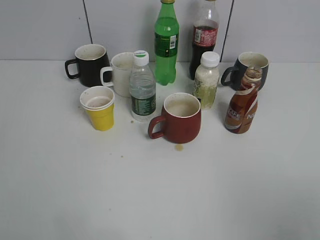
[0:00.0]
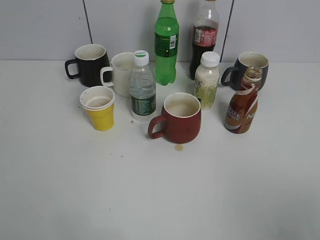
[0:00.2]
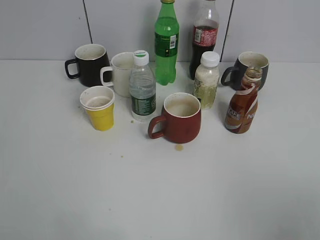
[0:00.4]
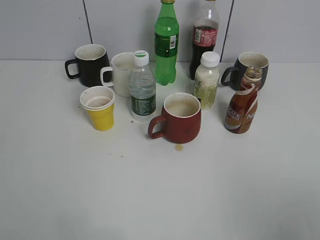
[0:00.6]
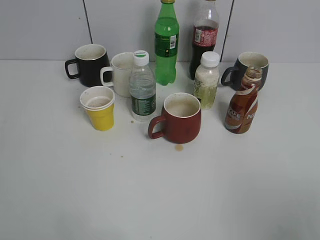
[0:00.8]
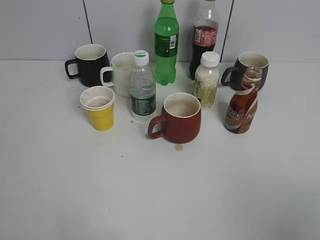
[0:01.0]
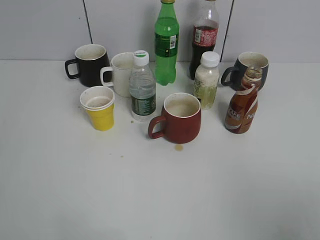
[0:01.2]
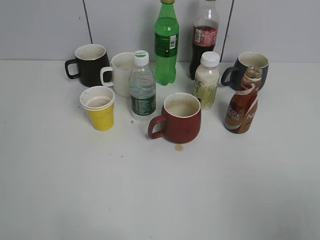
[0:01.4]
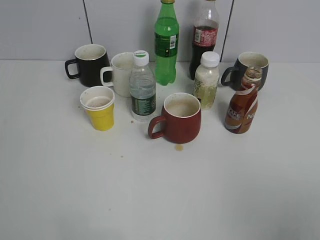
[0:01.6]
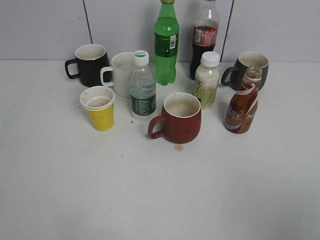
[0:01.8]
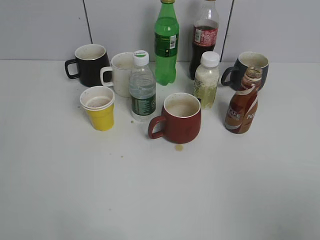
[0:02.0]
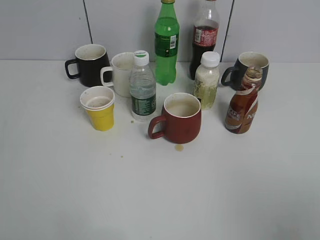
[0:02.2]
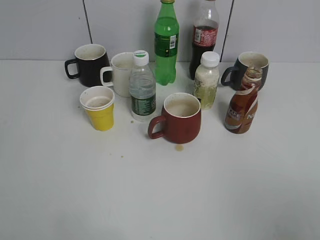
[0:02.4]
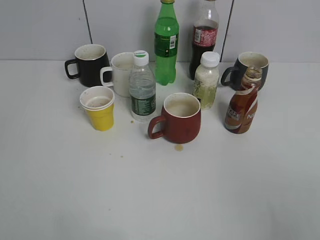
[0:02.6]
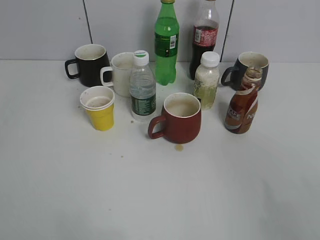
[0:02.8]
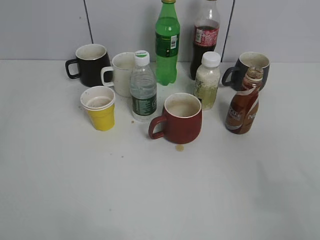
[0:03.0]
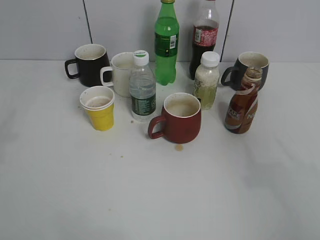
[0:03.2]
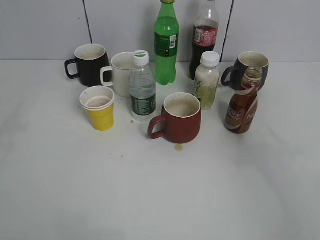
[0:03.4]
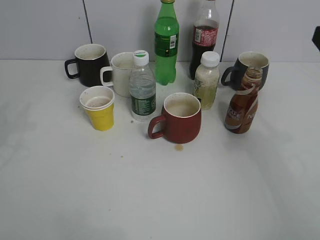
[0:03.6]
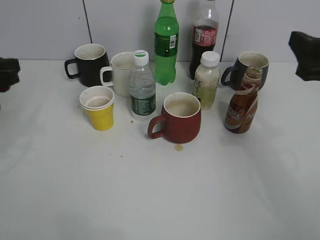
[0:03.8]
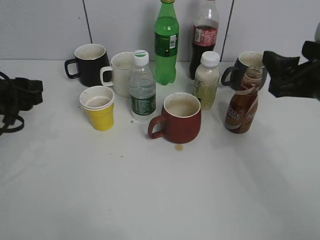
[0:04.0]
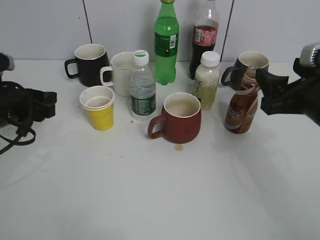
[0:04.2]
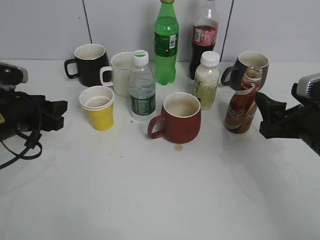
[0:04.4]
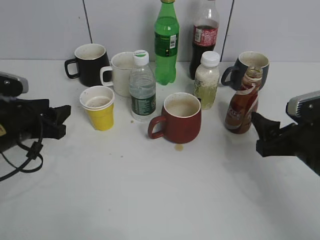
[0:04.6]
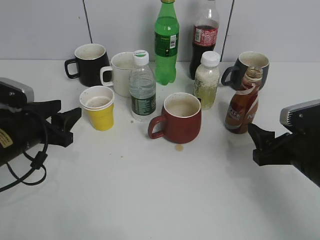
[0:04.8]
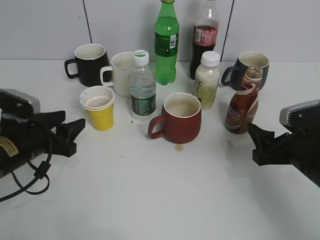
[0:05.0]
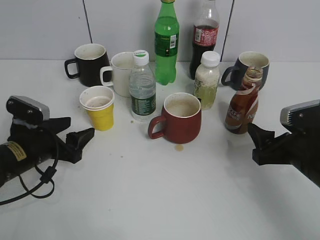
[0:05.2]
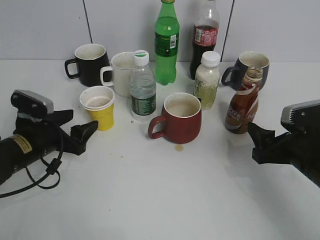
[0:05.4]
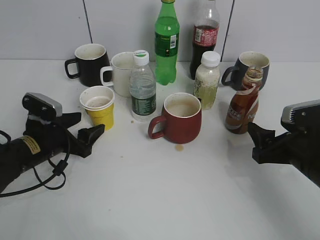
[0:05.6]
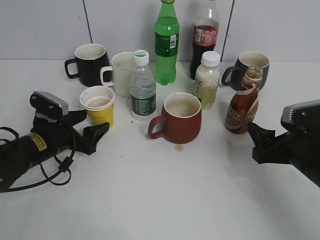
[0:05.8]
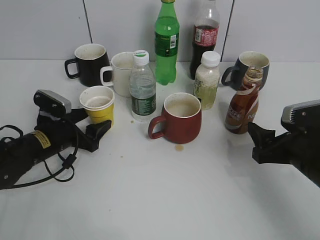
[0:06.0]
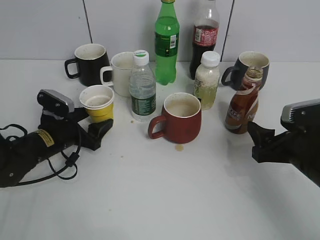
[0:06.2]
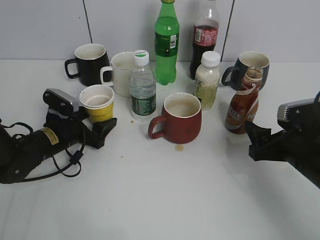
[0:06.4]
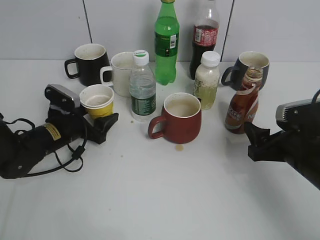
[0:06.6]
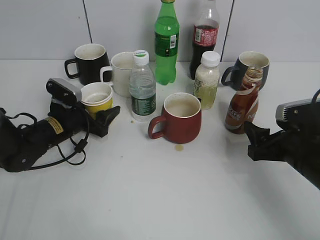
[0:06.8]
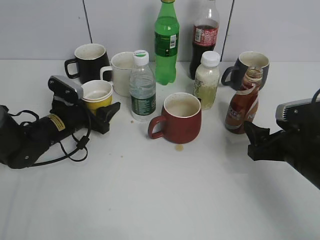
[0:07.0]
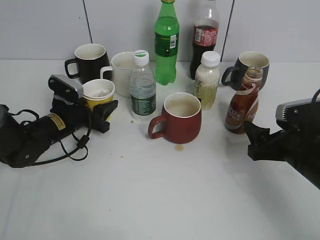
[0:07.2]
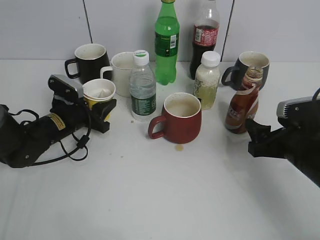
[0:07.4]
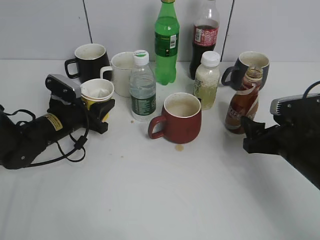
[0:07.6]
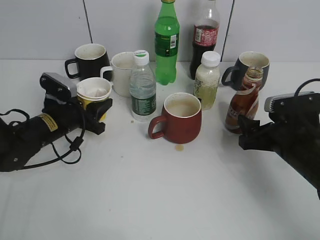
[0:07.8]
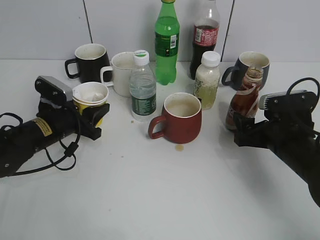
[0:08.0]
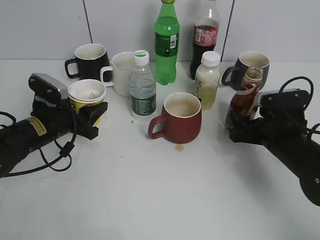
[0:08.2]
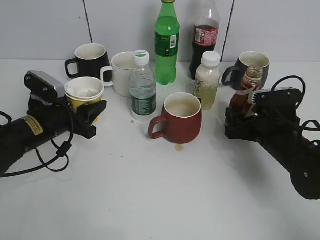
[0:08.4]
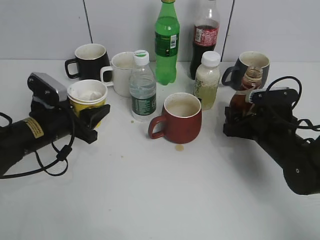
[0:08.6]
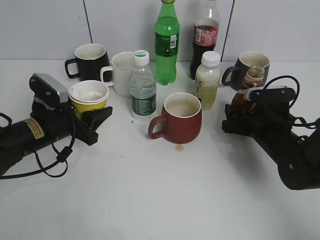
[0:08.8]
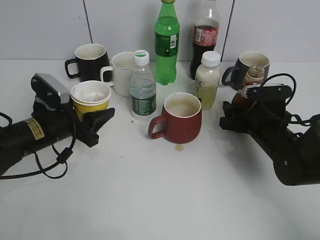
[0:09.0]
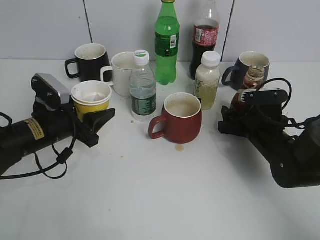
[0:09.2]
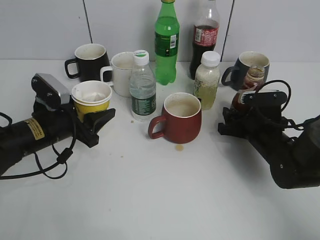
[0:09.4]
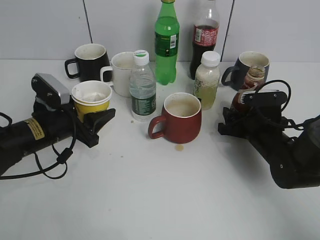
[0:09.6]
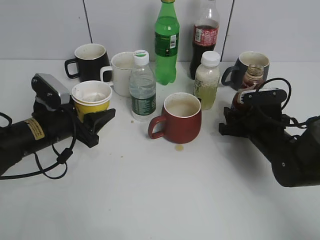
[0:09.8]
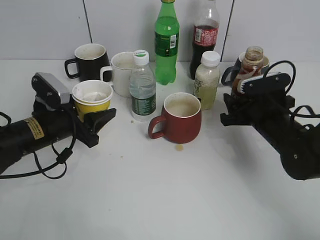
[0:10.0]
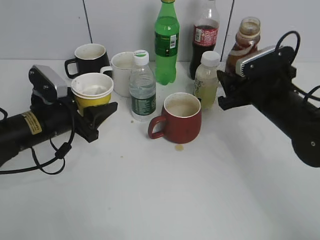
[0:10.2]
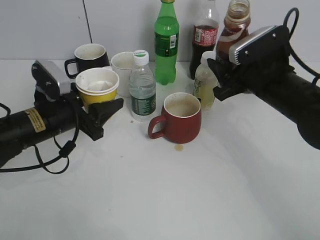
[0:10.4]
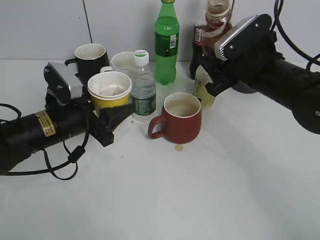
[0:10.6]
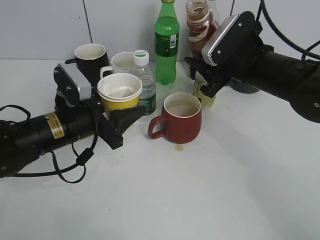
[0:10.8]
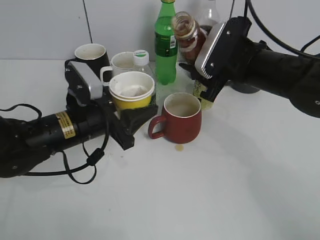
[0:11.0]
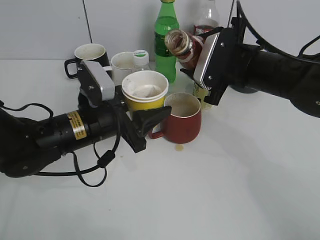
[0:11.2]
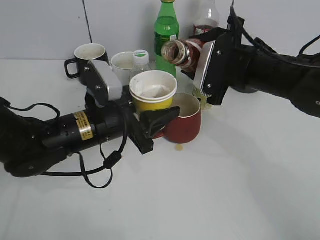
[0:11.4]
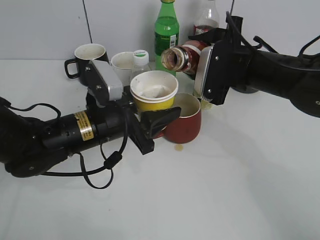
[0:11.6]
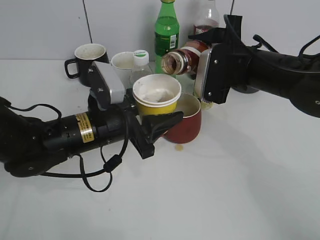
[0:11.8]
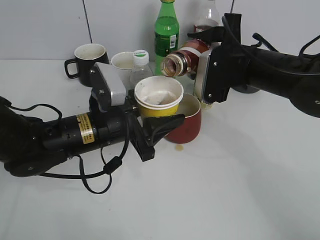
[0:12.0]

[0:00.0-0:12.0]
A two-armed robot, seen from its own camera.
Step, 0:02.2 to 0:06.2: Grasp the yellow paper cup with left gripper.
Step, 0:06.4 to 0:09.6: Grasp the bottle with coffee with right gripper.
0:01.6 to 0:03.0: The right gripper heads forward, covering about 10 cm. Meanwhile the left gripper heads forward, covering about 10 cm, and closes.
0:03.0 to 0:04.4: The two grippers go about 25 cm downward and forward.
0:04.4 to 0:06.0: The left gripper goes about 10 cm downward, and opens up.
0:06.0 to 0:07.6: The left gripper closes its fingers.
0:07.6 to 0:09.0: The left gripper goes some 5 cm backward, and opens up. The right gripper goes about 10 cm forward.
0:09.0 to 0:10.4: The right gripper goes some 10 cm upward, and closes.
0:10.4 to 0:12.0: The left gripper heads to the right, covering roughly 10 cm.

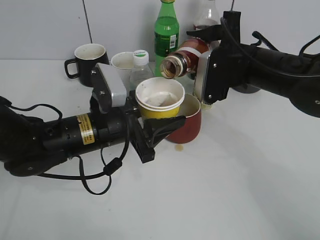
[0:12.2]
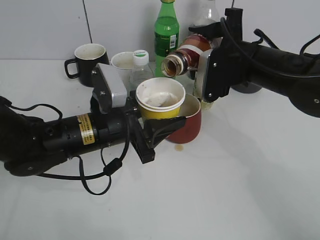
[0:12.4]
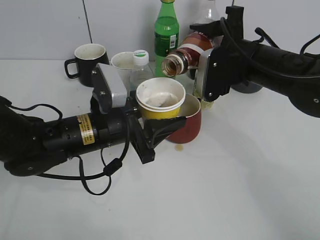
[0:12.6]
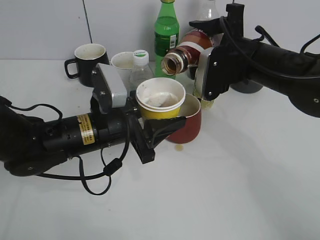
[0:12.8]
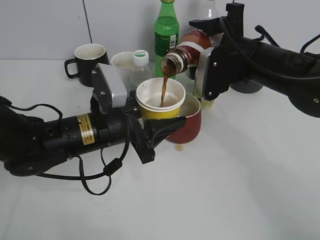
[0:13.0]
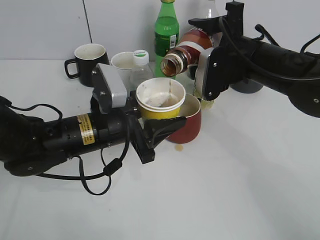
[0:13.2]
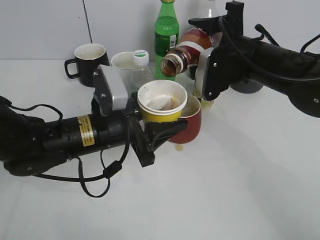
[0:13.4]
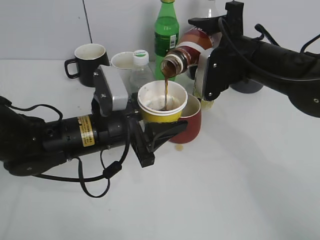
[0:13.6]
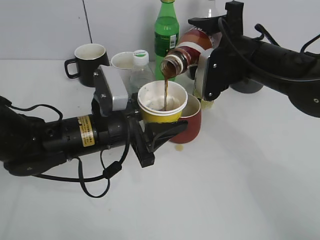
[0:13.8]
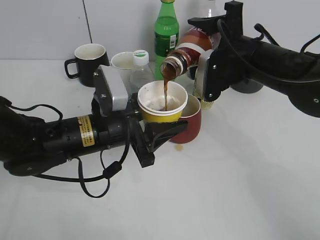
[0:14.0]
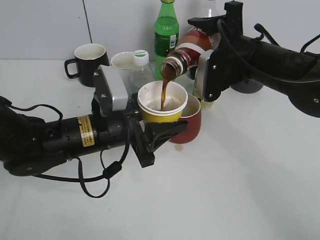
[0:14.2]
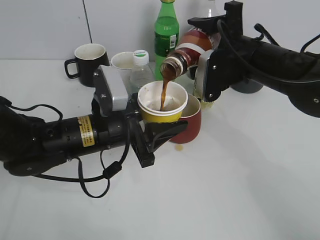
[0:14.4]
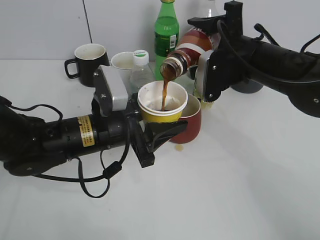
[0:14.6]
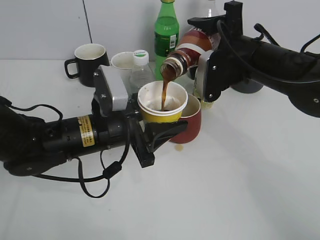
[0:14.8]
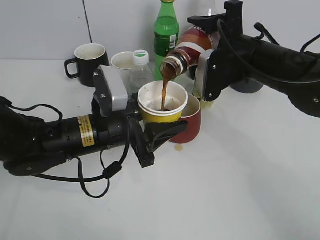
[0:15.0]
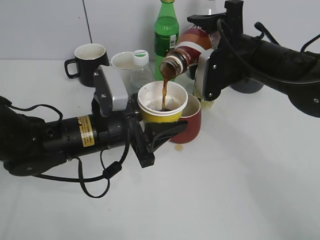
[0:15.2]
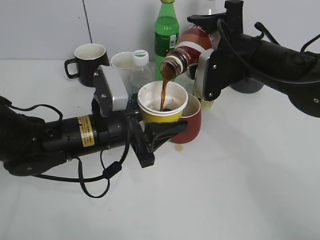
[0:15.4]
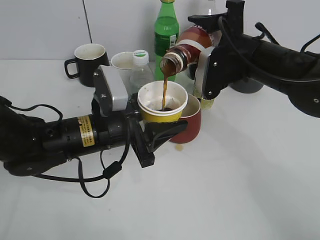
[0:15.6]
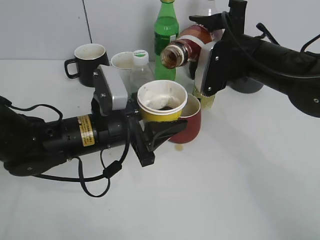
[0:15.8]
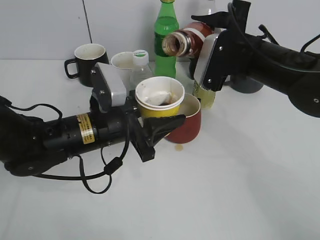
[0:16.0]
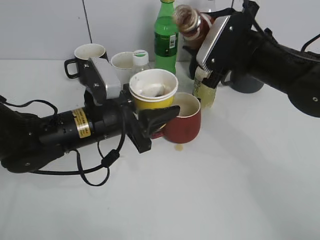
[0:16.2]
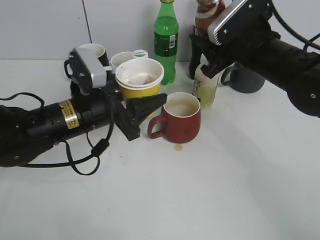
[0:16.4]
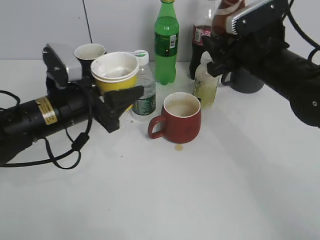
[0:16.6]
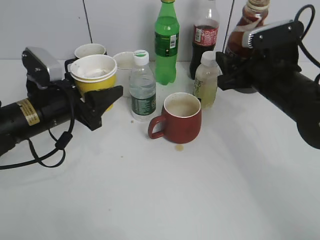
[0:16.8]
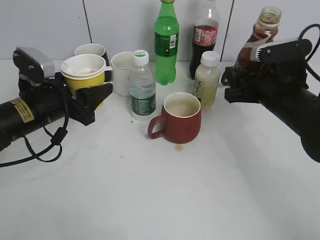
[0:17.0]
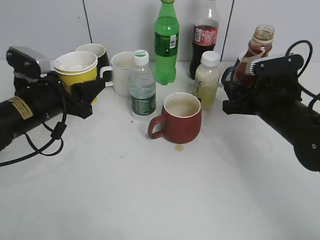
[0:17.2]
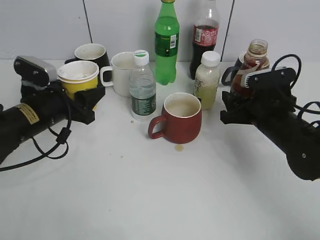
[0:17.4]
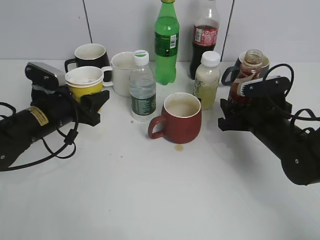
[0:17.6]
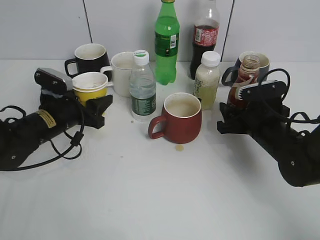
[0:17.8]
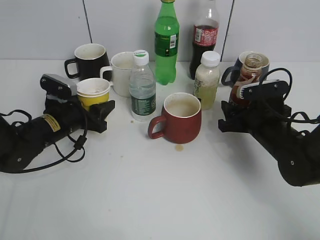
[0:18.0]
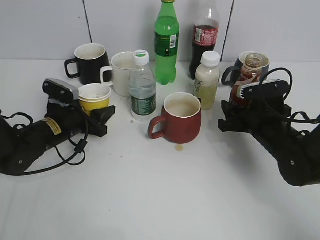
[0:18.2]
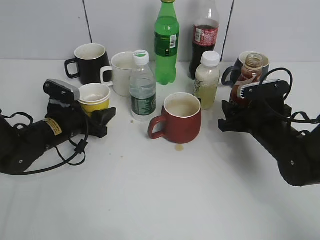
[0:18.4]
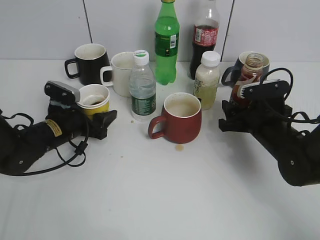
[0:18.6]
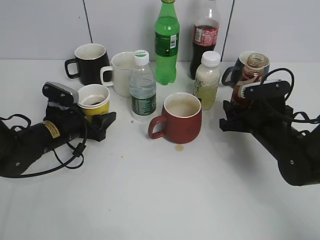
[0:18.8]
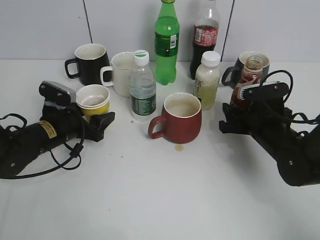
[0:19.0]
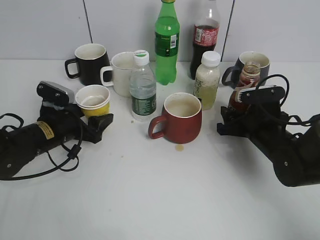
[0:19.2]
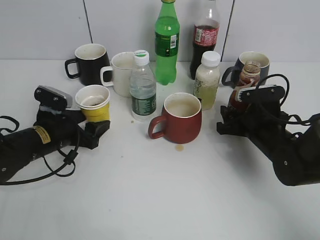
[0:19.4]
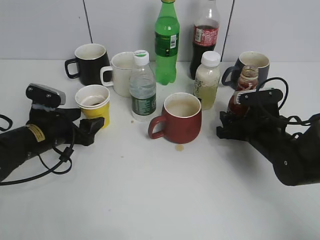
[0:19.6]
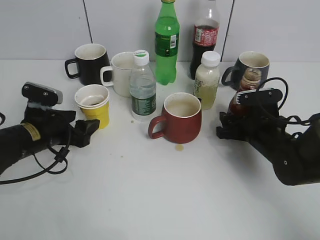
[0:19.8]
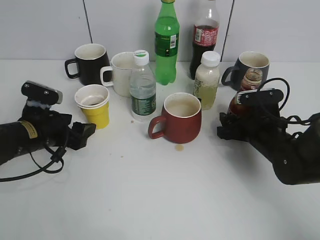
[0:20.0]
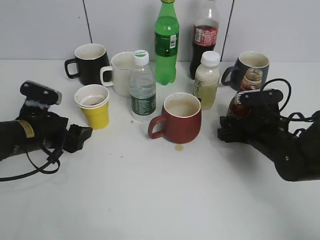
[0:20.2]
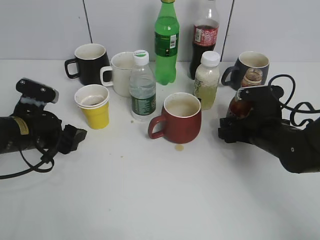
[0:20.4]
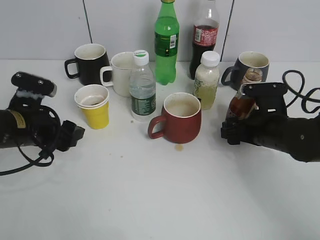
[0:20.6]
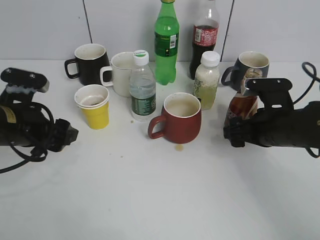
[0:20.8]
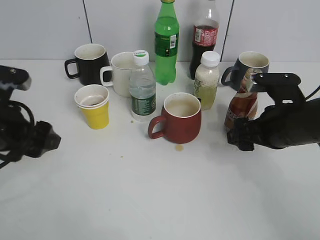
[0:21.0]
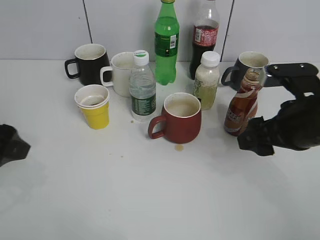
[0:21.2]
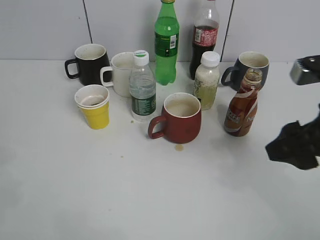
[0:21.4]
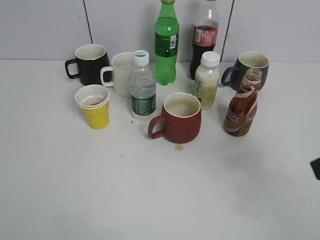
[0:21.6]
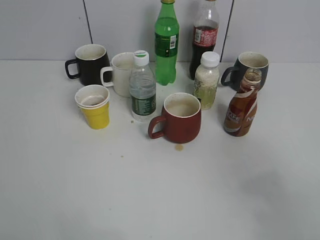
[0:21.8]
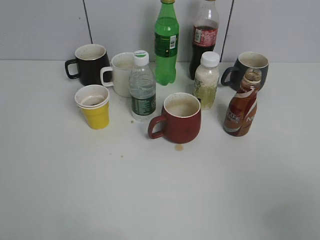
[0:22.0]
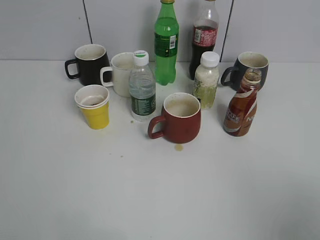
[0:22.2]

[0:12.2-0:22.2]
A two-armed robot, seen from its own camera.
Step, 0:12.2 to 0:16.4: Pour the coffee from bottle to cup with right gripper.
Step, 0:16.6 to 0:20.6: Place the coffee bottle on the table with right gripper.
0:12.2 to 0:13.6: The grippers stay close to where they were, moving slightly.
0:13.6 to 0:15.0: Both grippers stay about where they are.
0:16.4 to 0:18.0: The right gripper shifts approximately 15 cm downward, while the left gripper moves downward, to the left and forward, roughly 15 cm.
0:18.0 to 0:19.4: The left gripper opens.
0:19.4 to 0:20.8: The right gripper is displaced upward by some 5 cm, and opens its fingers, while the left gripper shifts approximately 10 cm upward and backward.
0:20.8 to 0:22.2: The two grippers go some 30 cm backward and upward.
